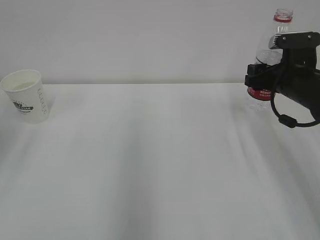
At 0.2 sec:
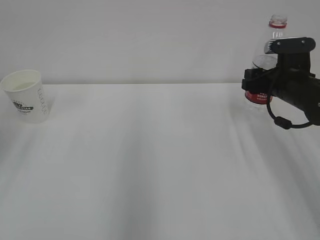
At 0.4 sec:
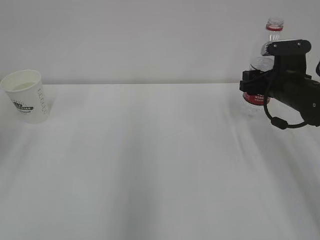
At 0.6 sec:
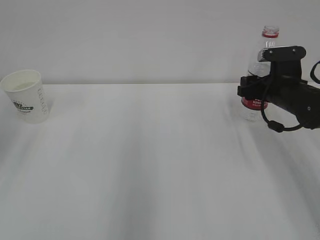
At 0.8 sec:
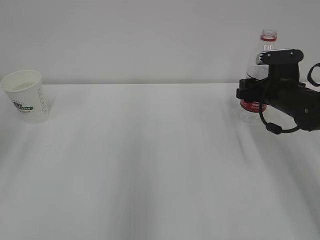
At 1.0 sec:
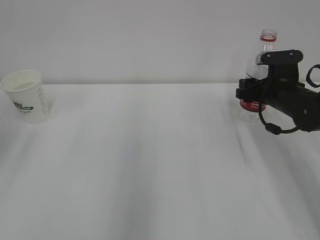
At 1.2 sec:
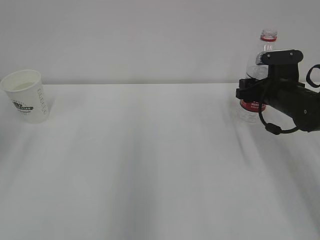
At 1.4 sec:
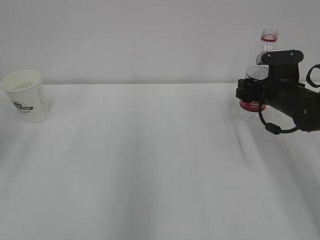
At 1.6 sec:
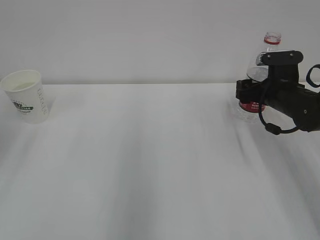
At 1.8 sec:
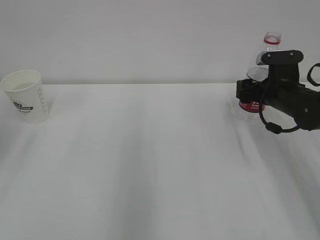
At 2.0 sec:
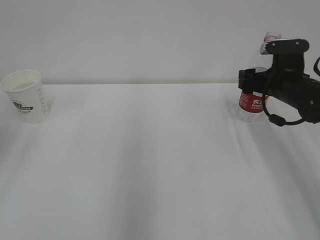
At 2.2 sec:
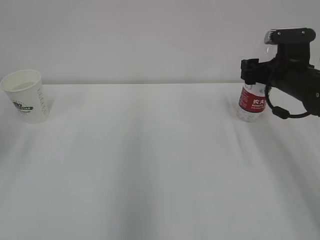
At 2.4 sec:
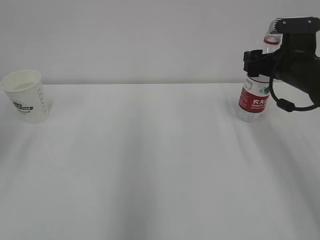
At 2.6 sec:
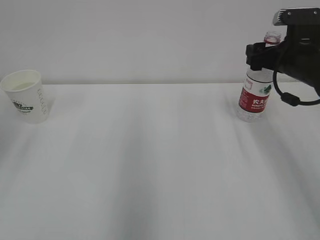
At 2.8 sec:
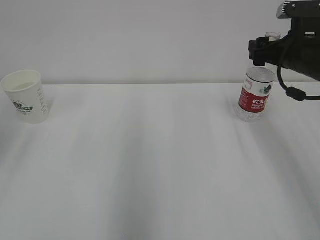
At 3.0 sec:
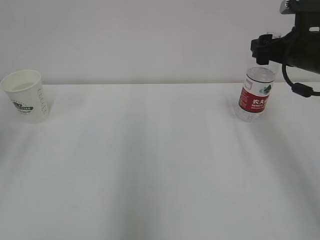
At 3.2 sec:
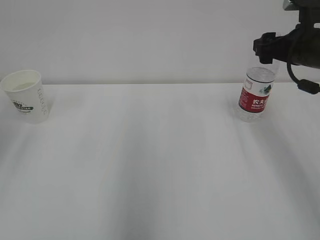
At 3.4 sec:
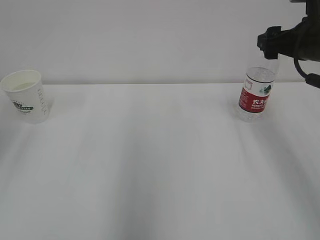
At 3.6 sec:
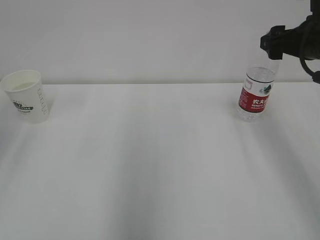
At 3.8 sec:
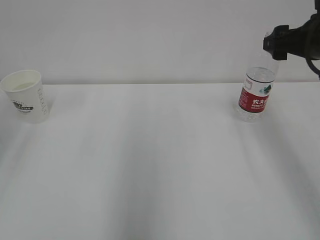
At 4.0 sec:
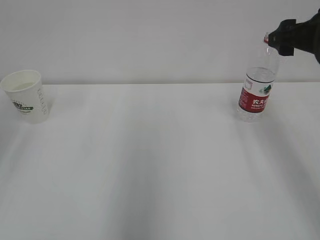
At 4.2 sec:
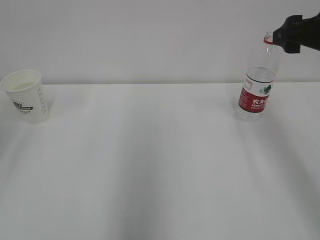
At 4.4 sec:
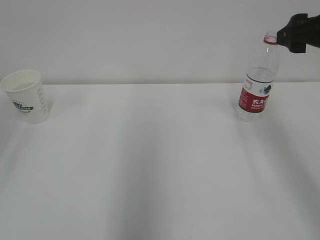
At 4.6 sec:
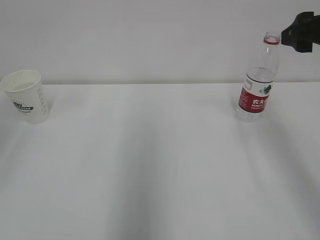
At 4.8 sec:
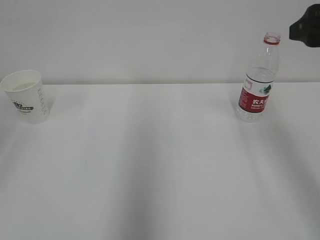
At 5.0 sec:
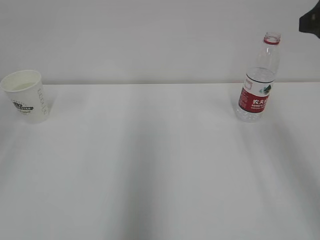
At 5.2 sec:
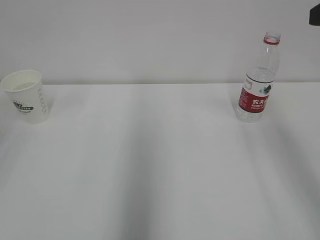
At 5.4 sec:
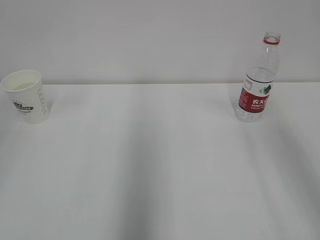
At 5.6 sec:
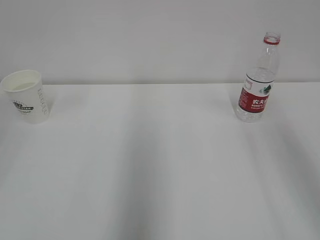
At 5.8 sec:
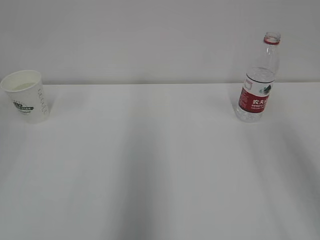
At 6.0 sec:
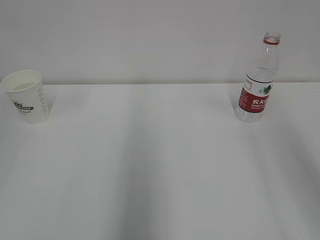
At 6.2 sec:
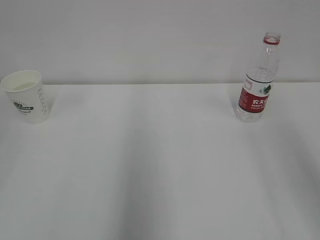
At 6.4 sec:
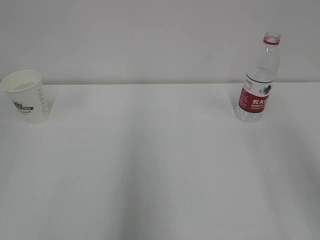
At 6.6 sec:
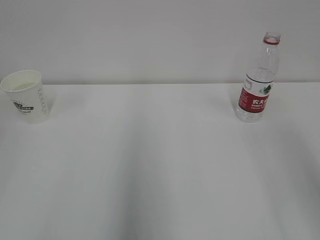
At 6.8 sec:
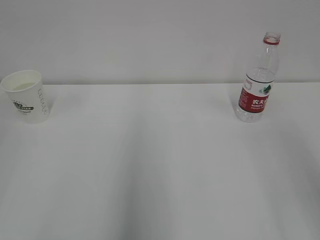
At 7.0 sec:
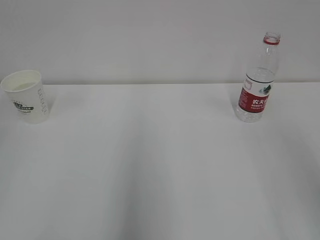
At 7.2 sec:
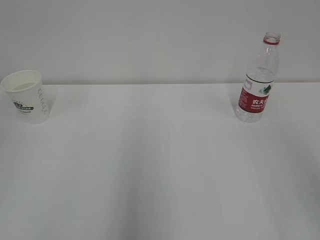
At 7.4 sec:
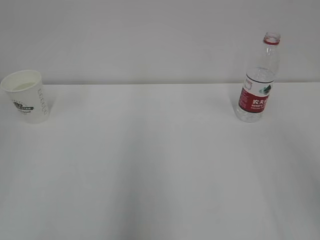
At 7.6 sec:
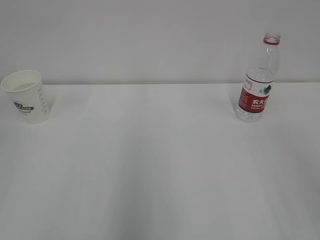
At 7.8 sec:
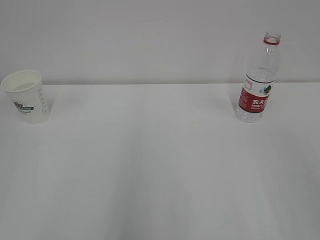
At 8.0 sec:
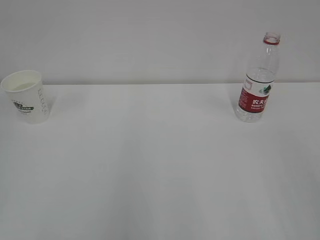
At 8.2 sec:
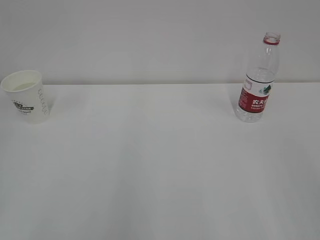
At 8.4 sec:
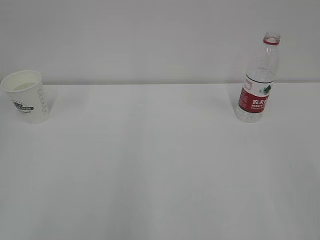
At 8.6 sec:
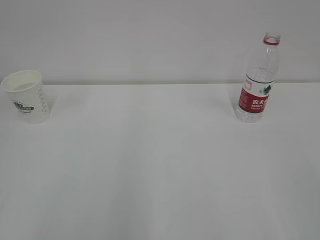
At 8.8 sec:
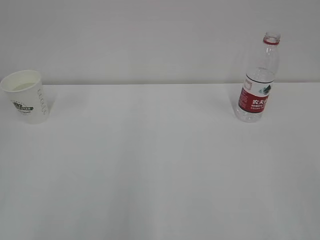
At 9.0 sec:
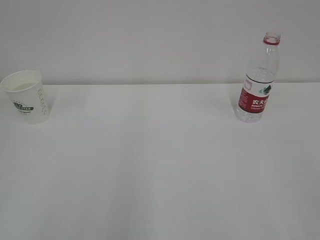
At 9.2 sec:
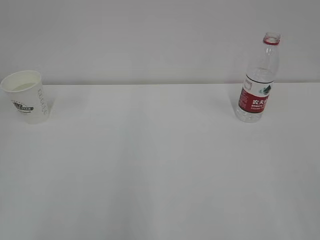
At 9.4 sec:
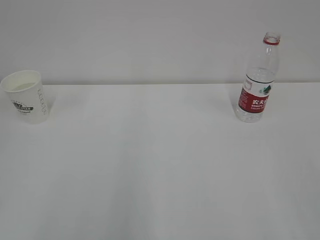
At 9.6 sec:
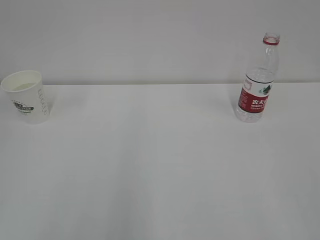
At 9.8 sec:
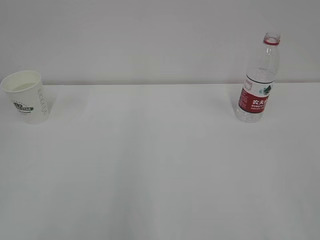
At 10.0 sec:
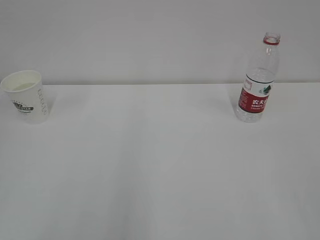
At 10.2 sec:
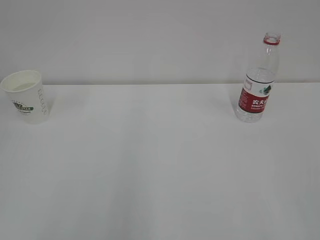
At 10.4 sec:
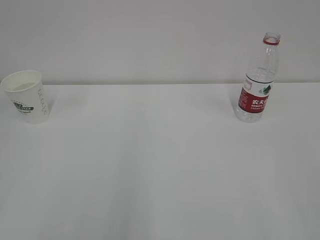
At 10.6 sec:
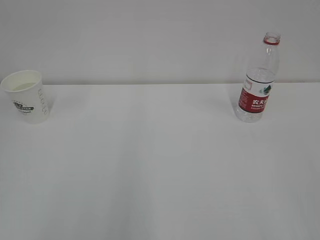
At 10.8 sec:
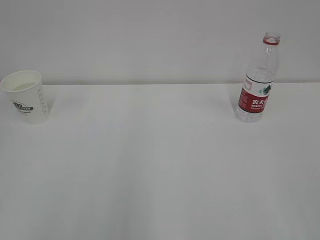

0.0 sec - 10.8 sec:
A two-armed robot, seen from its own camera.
0.0 sec - 1.6 sec: The right gripper shifts by roughly 5 cm, and opens up.
1.6 sec - 3.0 sec: The right gripper is displaced upward by approximately 10 cm.
3.0 sec - 4.6 sec: The right gripper is displaced upward and backward by about 10 cm, and closes.
4.6 sec - 6.2 sec: The right gripper is displaced backward and upward by approximately 15 cm.

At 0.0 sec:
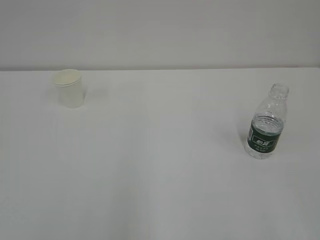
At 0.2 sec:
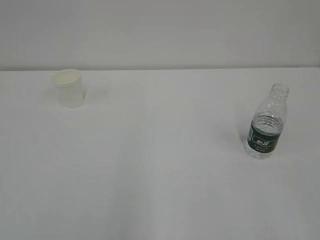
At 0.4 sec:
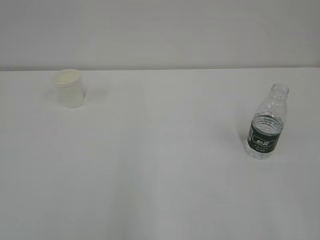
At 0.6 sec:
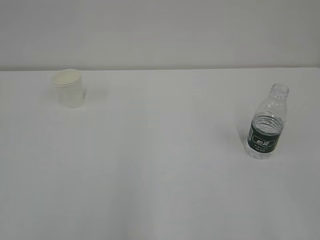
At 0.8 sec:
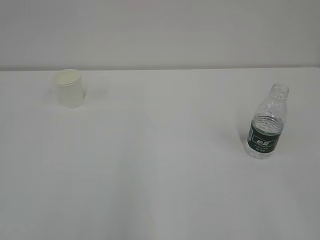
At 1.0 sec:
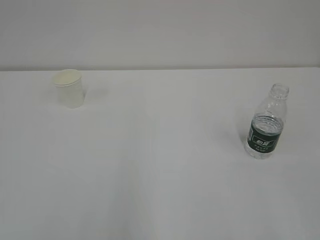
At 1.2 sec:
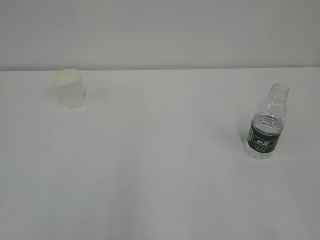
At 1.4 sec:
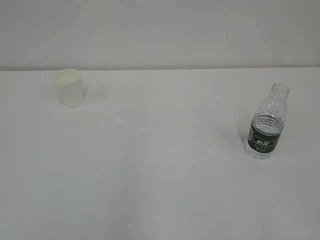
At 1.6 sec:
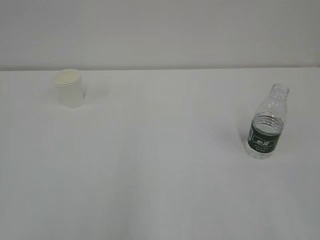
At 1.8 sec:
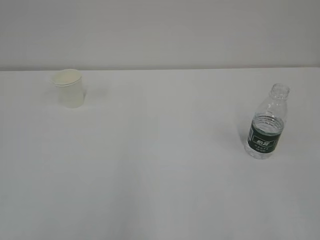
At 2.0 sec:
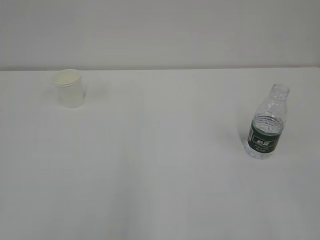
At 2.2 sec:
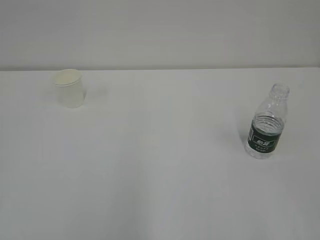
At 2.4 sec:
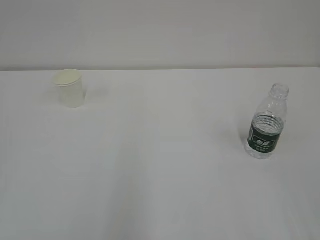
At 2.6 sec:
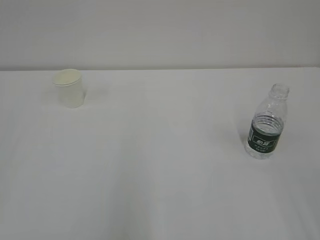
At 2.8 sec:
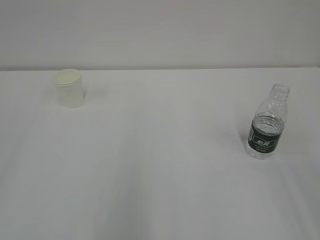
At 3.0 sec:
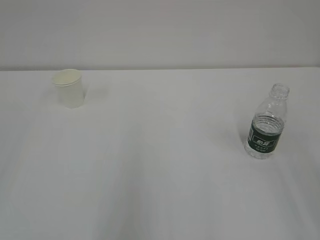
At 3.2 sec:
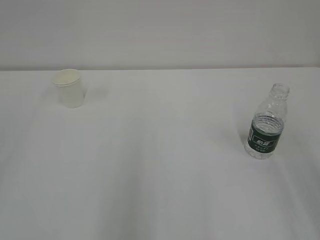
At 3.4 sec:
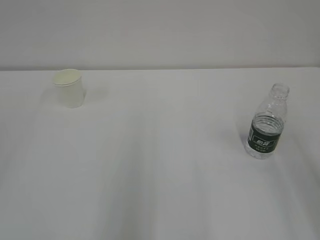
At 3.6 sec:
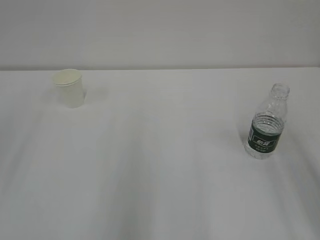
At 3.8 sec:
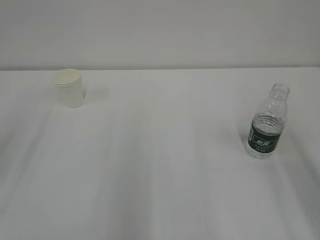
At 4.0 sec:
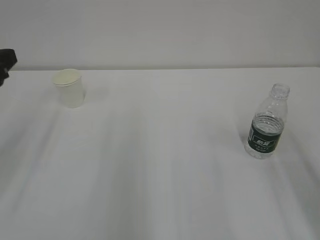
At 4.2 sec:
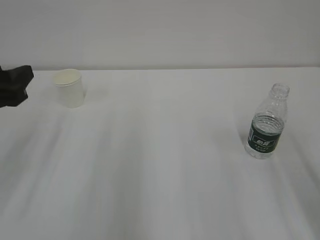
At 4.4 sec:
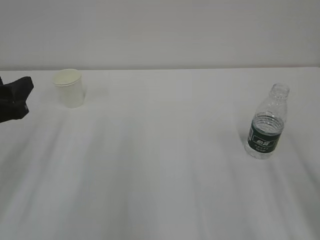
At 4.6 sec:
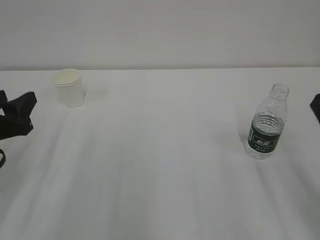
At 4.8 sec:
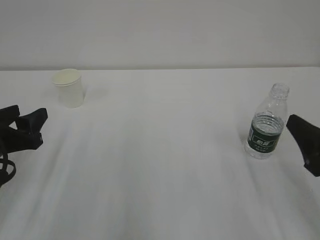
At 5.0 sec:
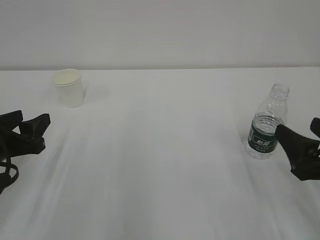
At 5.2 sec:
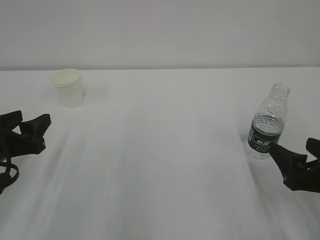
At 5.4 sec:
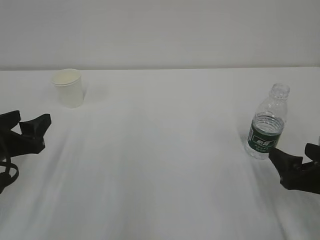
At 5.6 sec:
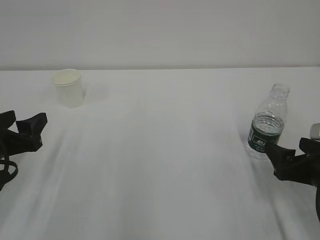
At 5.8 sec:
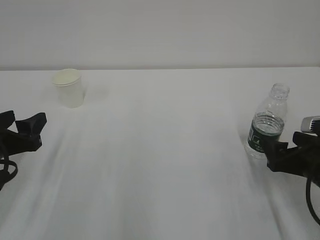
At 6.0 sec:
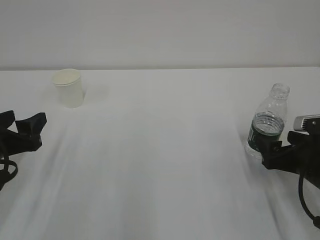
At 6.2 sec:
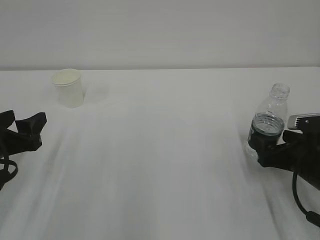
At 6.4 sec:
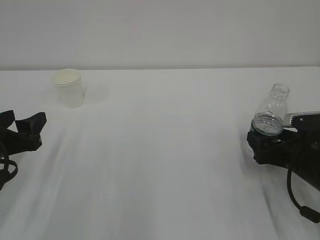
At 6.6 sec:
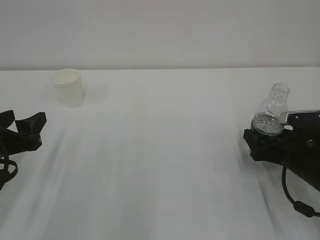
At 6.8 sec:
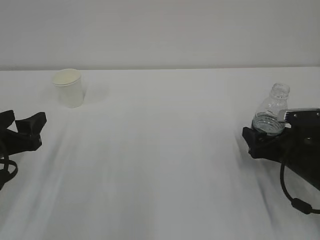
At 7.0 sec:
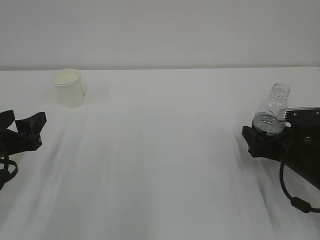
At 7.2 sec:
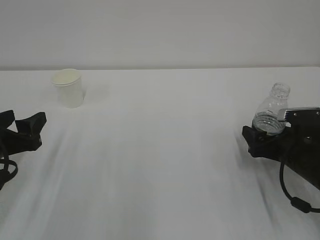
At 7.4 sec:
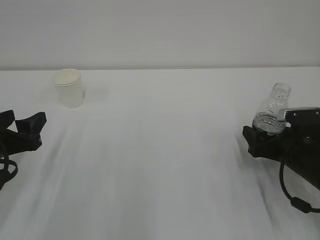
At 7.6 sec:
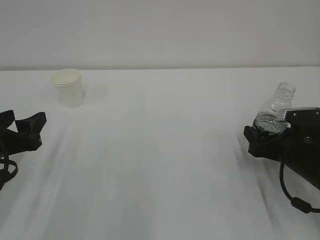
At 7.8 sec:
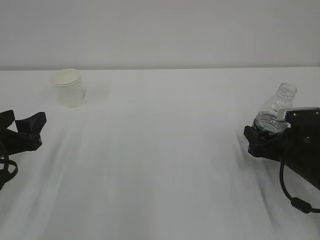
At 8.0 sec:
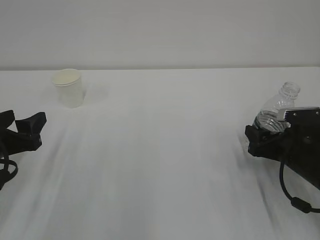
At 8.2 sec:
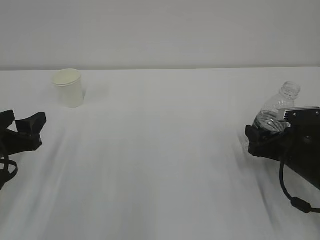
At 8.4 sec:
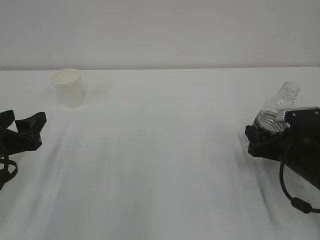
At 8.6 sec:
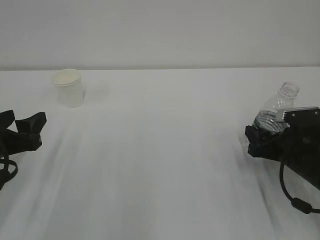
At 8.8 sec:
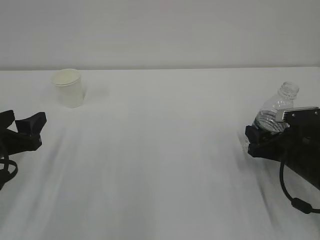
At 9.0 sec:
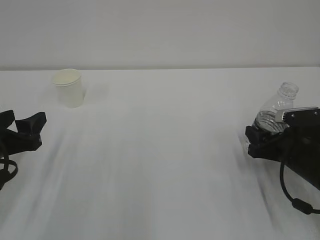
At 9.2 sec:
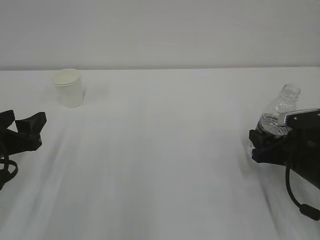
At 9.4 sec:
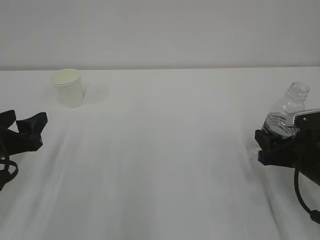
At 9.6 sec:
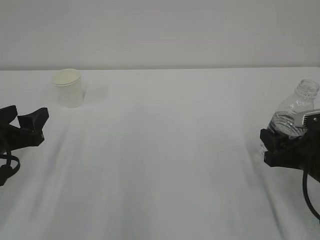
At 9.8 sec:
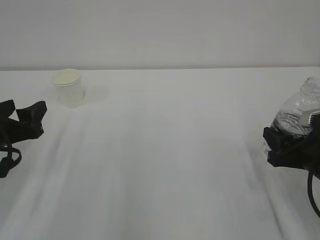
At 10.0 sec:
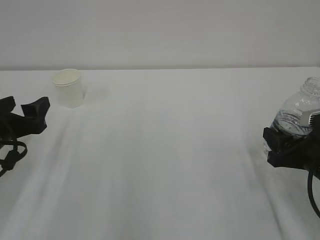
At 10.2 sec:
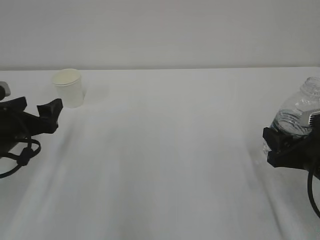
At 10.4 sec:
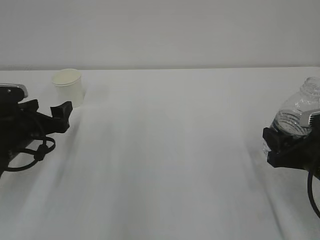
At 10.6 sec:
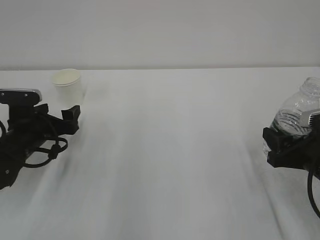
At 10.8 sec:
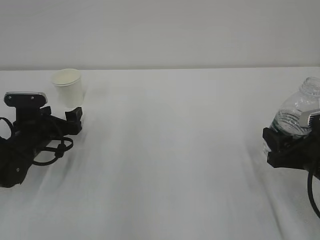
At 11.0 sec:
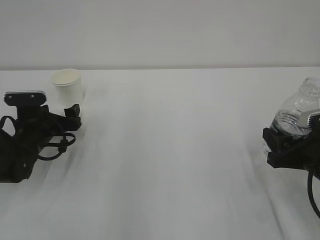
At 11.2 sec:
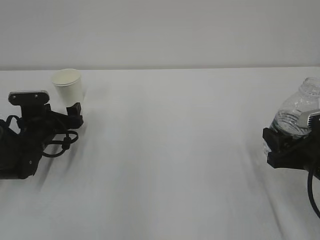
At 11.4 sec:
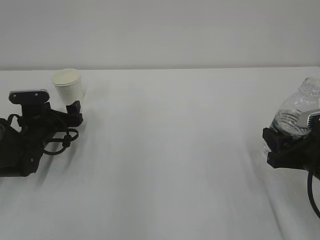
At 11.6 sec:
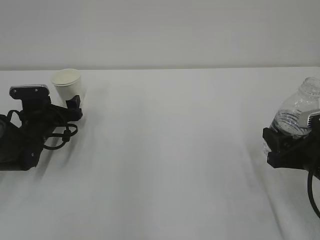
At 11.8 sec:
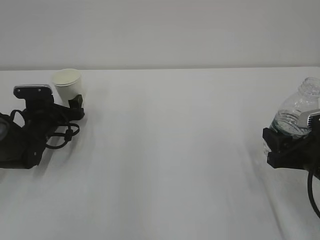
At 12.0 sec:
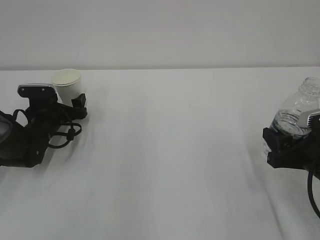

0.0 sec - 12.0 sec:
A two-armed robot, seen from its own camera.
3.0 sec - 4.4 sec: The left gripper travels forward and downward by roughly 20 cm.
4.4 sec - 6.0 sec: The left gripper shifts approximately 5 cm downward. The right gripper heads downward and forward, covering some 15 cm.
6.0 sec - 7.6 sec: The right gripper closes up.
9.0 sec - 10.4 sec: The left gripper shifts about 5 cm forward, and opens. The right gripper shifts roughly 5 cm backward.
10.4 sec - 12.0 sec: The left gripper moves forward and downward, approximately 15 cm.
